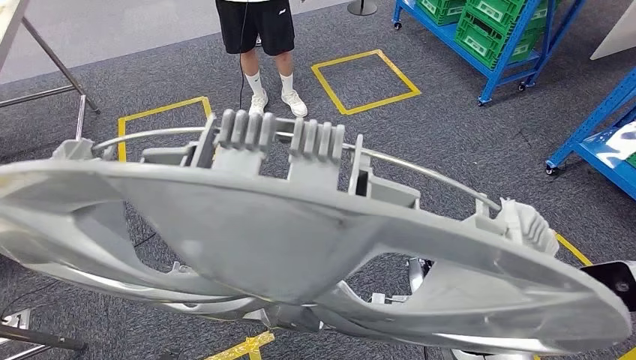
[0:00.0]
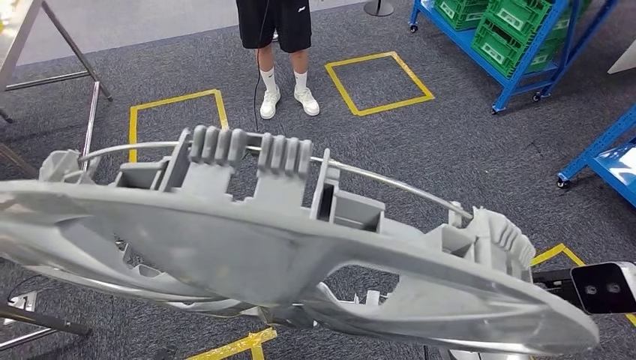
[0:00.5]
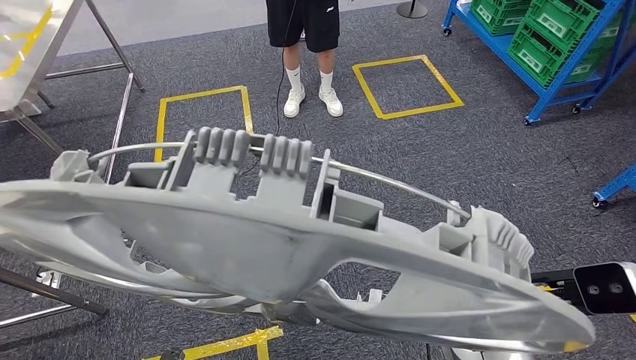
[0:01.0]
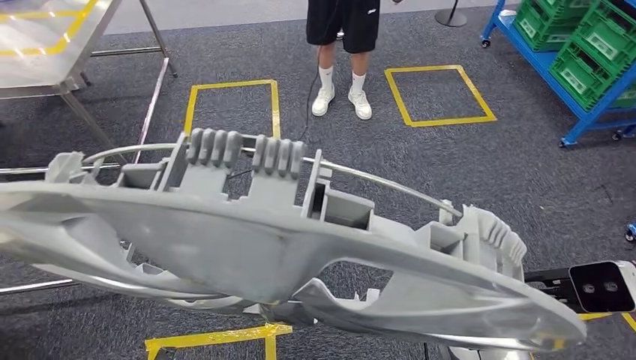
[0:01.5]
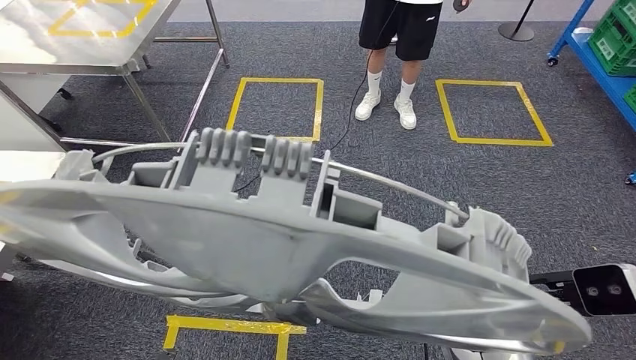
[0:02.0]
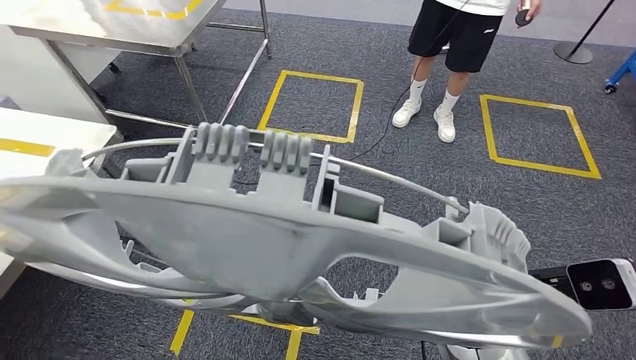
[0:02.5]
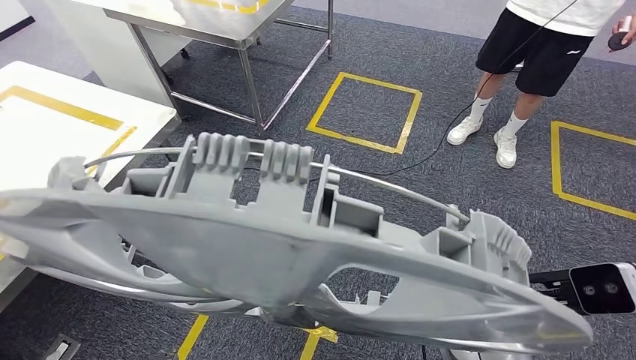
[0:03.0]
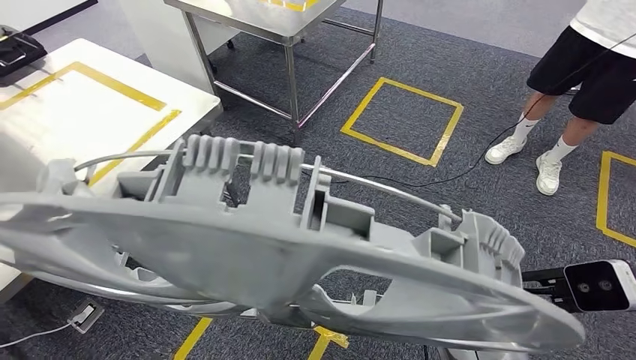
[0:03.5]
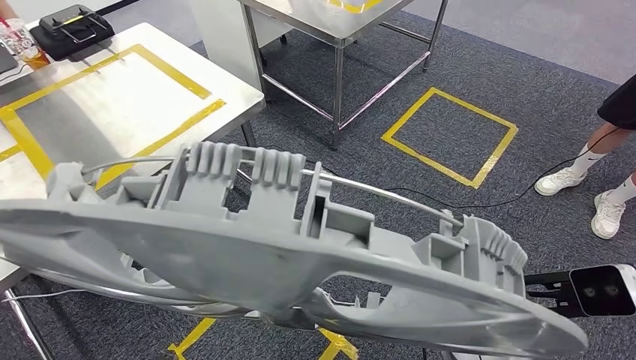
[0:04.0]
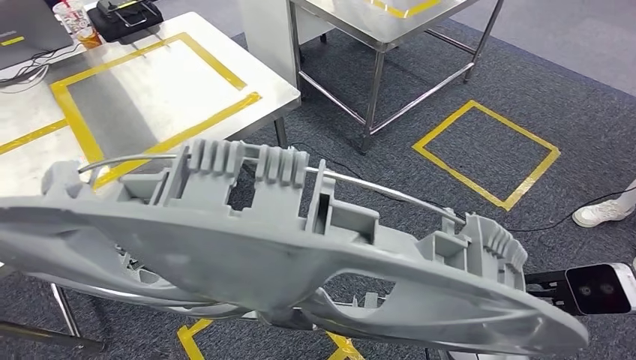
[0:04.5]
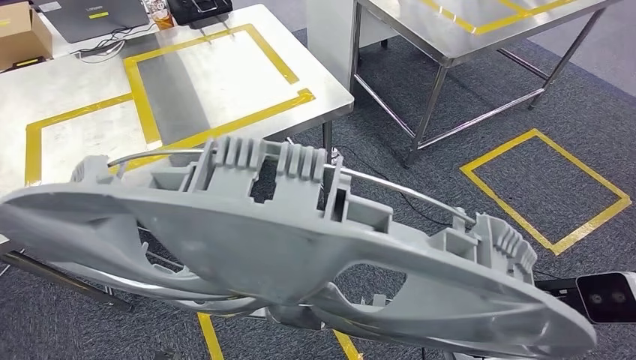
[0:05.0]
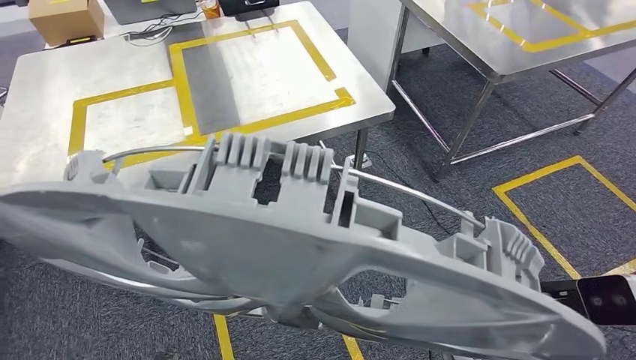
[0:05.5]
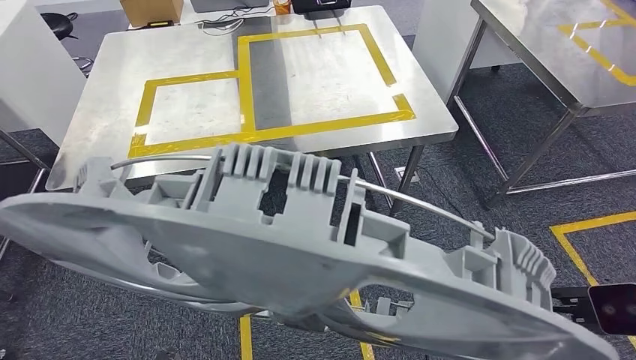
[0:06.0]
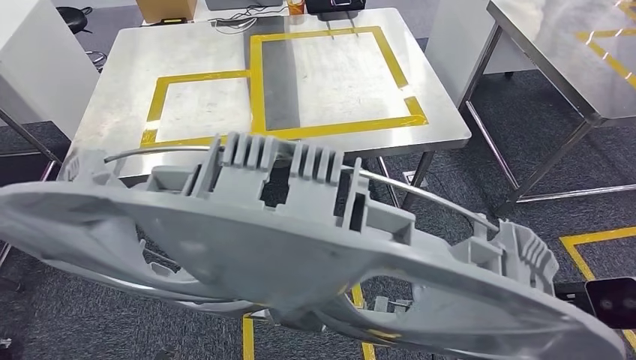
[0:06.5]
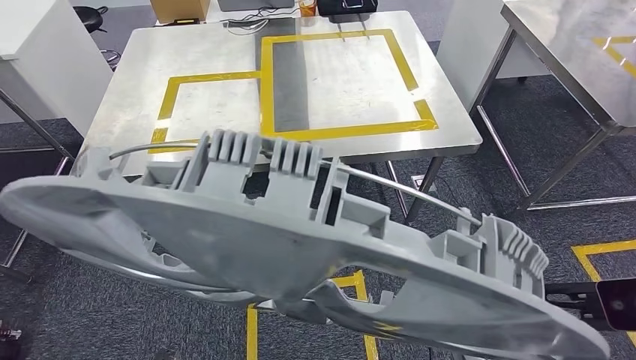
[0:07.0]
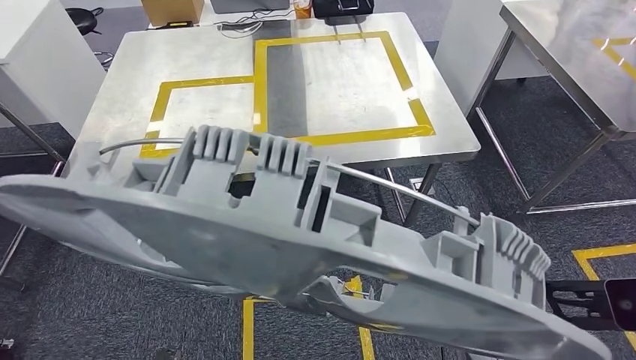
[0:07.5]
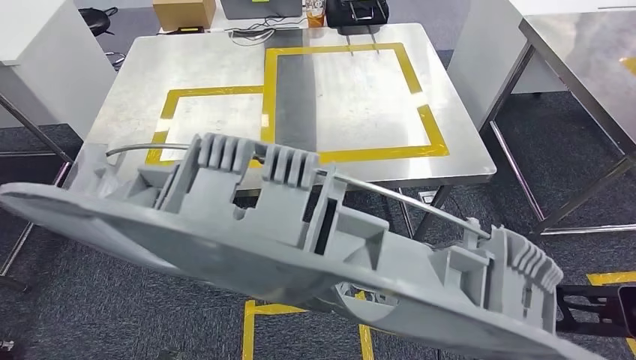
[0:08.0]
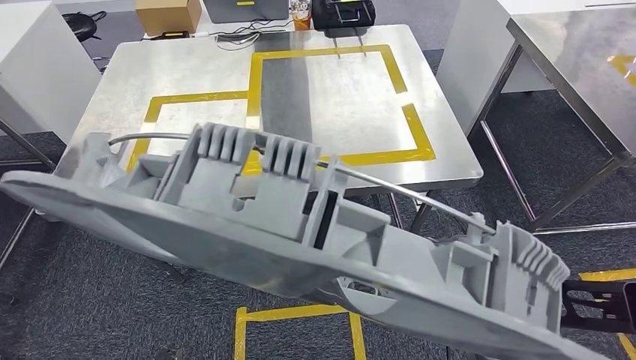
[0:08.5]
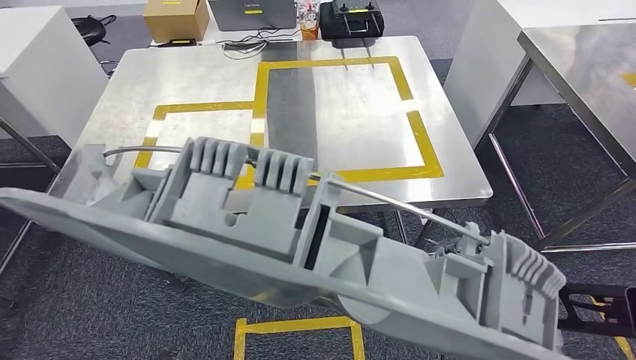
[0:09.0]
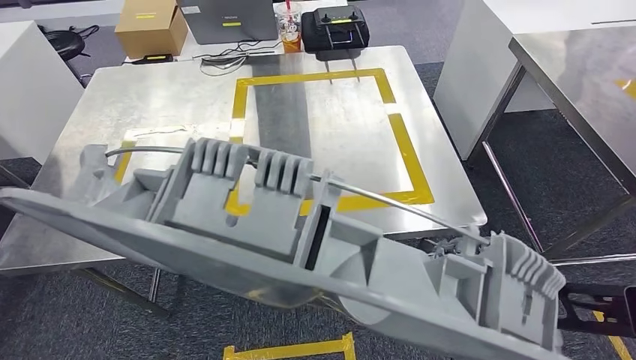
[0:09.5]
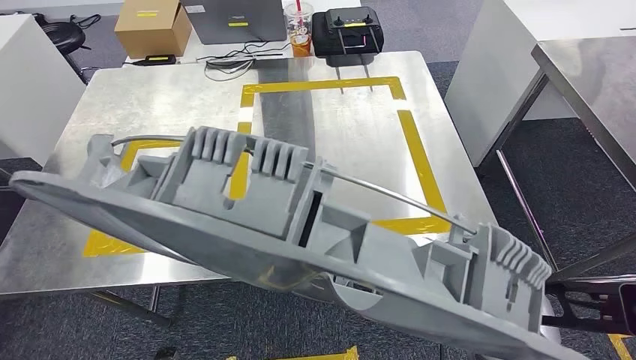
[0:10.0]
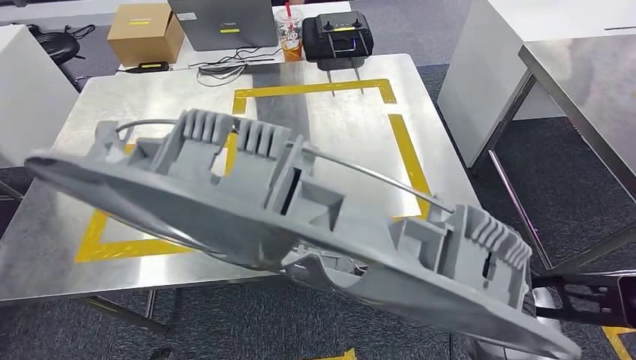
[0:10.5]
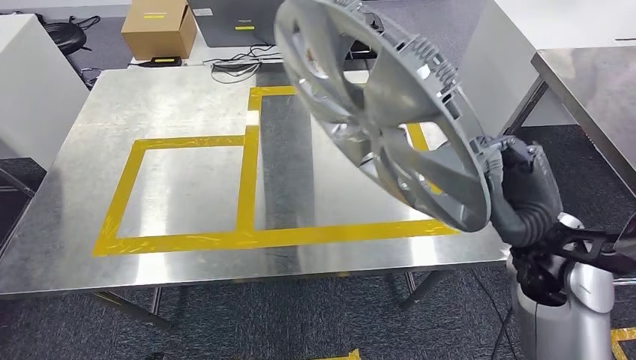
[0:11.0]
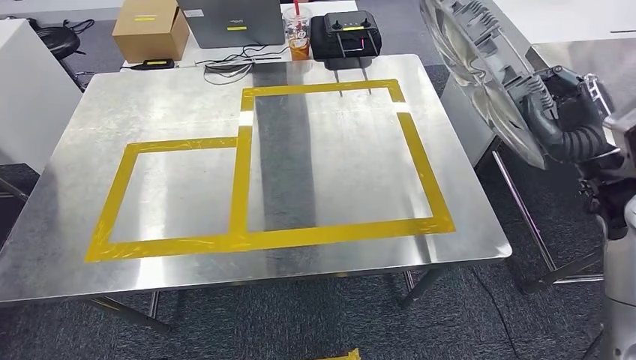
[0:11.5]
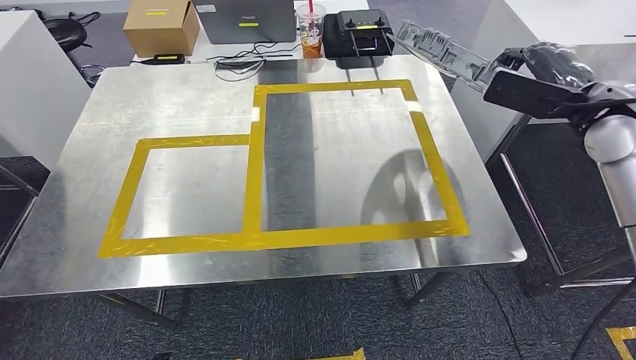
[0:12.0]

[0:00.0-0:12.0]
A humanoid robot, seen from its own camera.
Step, 0:00.0 to 0:05.5: Move the small parts to the workbench.

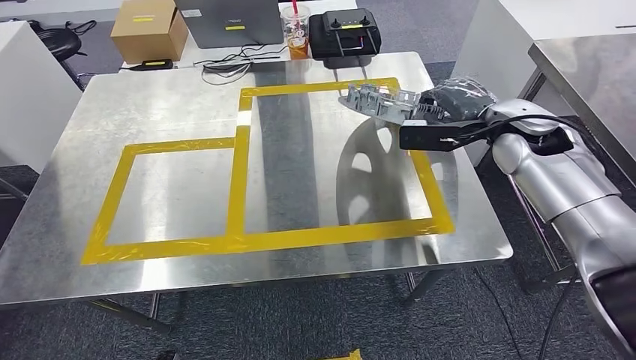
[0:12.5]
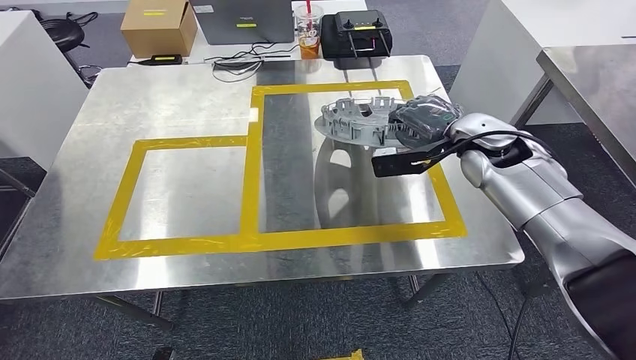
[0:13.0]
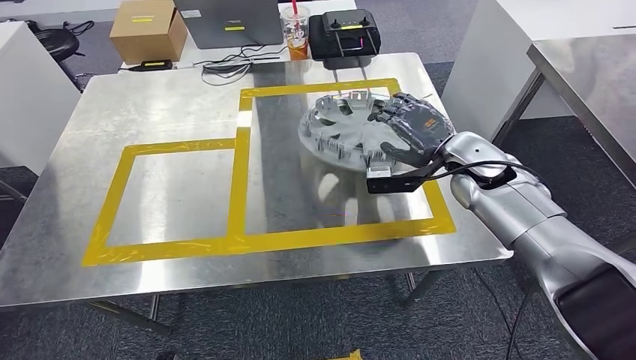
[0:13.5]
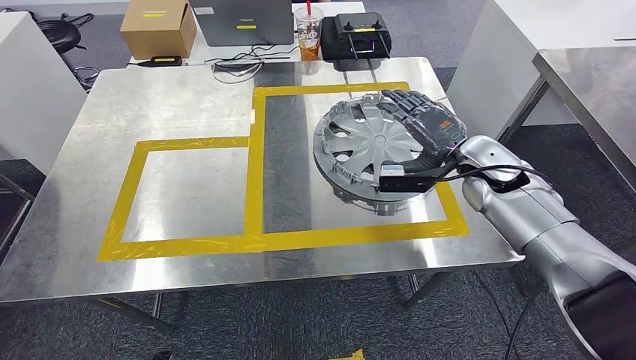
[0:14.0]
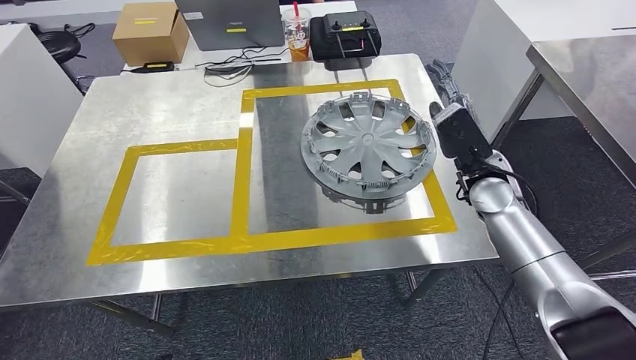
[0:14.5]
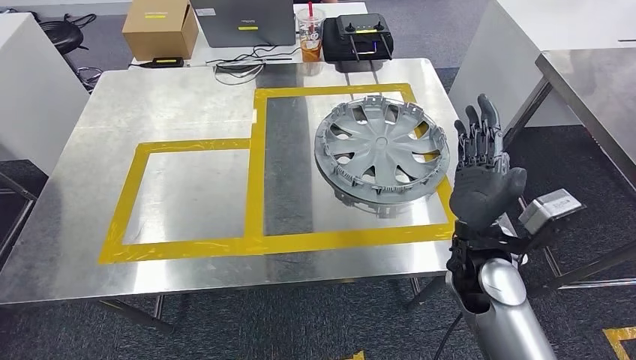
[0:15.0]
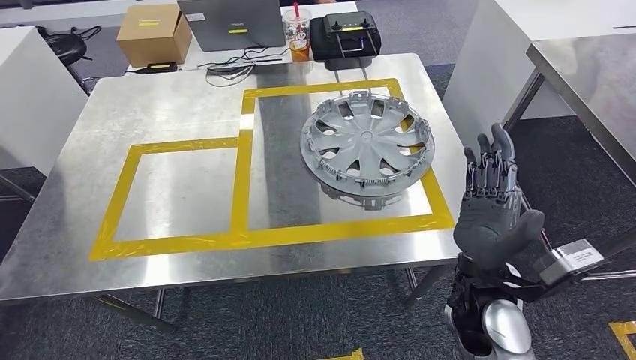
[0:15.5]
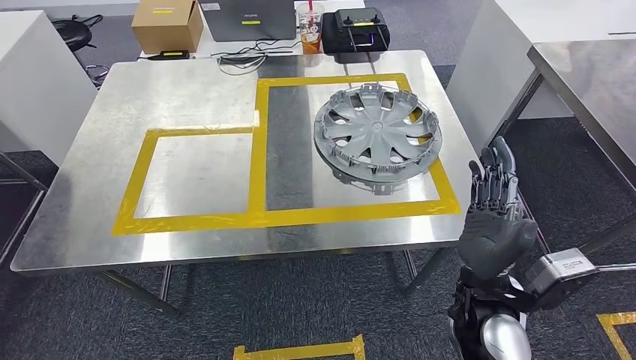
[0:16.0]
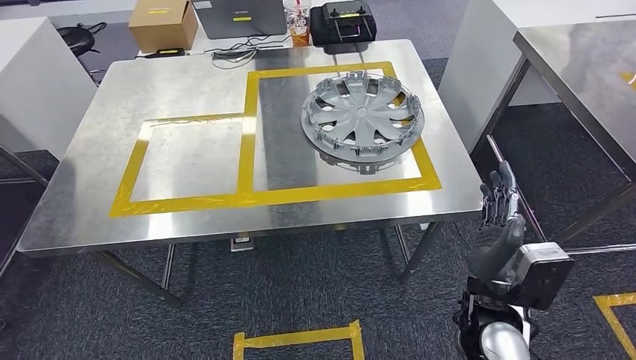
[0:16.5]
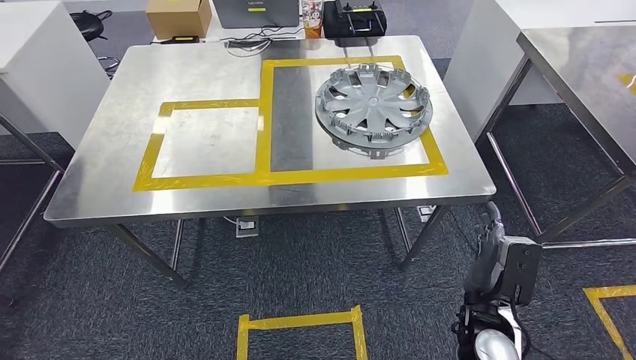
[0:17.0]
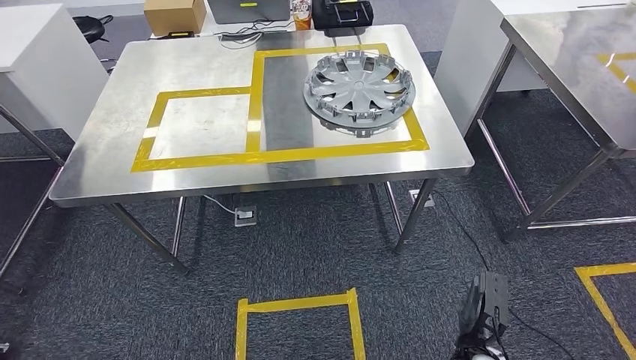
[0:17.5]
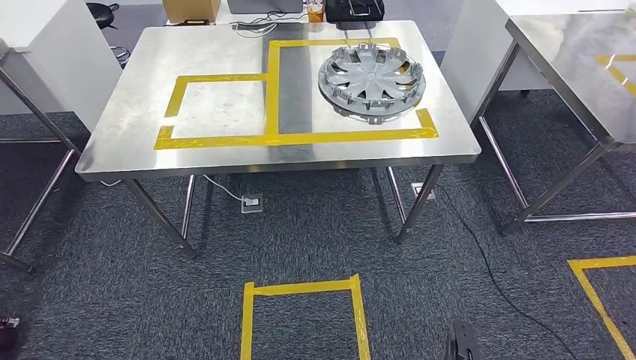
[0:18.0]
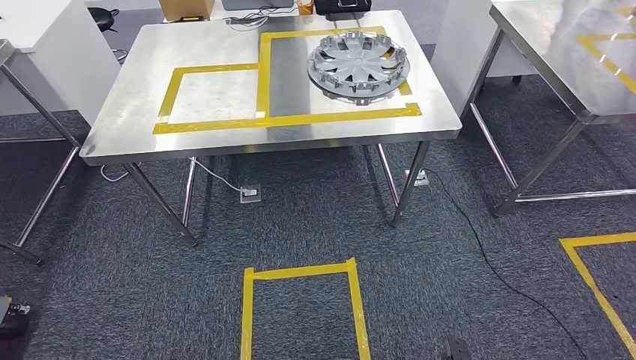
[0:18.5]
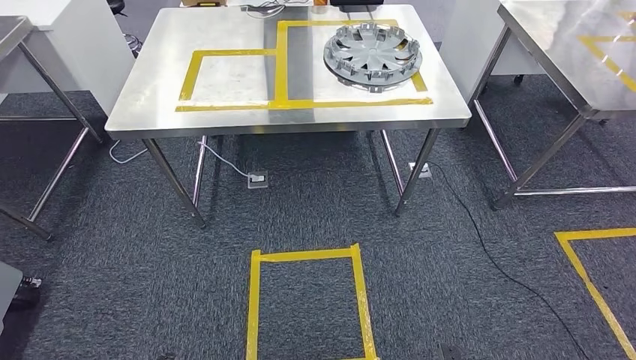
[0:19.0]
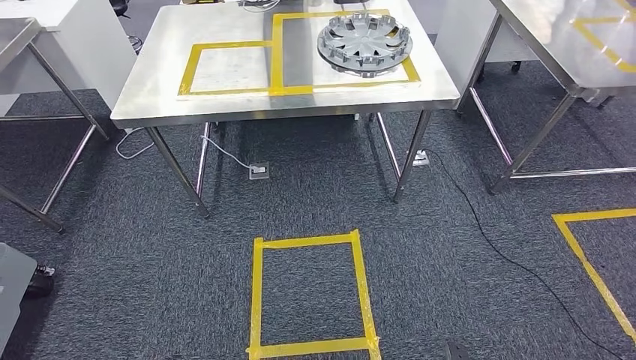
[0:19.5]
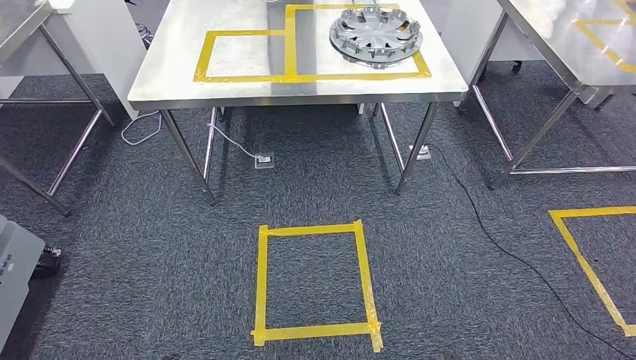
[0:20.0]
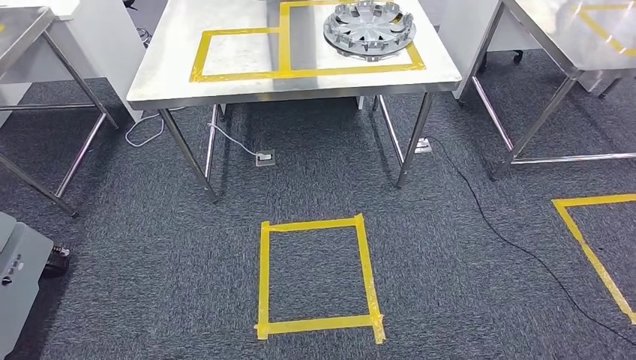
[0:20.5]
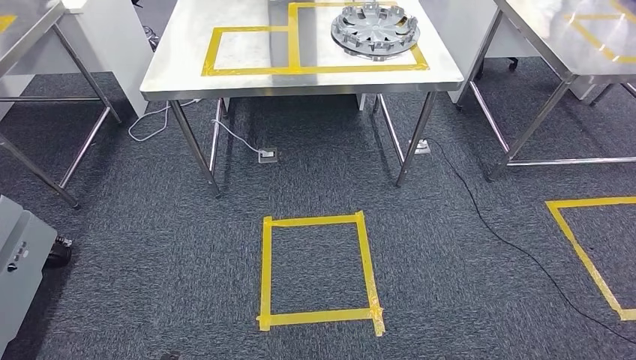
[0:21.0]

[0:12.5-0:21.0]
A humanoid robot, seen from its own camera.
Step, 0:12.5 to 0:14.5: Insert the small parts into the corresponding holes on the workbench.
Step, 0:15.0 to 0:21.0: Move to the initial position at the workbench.
